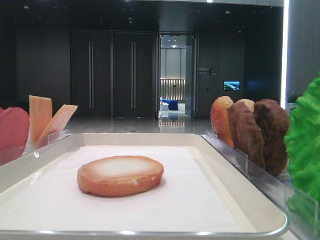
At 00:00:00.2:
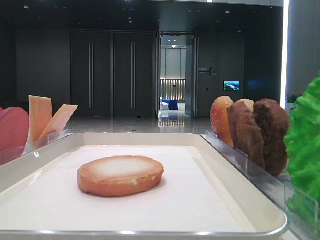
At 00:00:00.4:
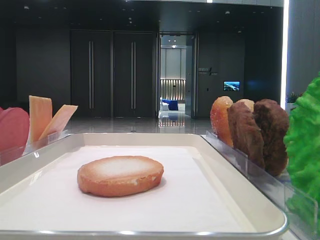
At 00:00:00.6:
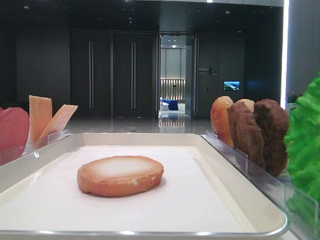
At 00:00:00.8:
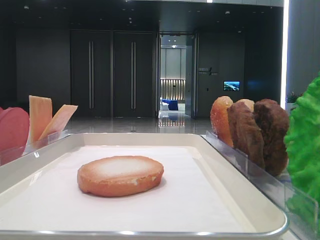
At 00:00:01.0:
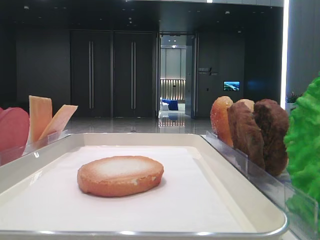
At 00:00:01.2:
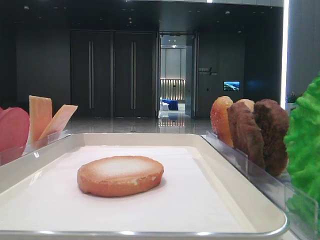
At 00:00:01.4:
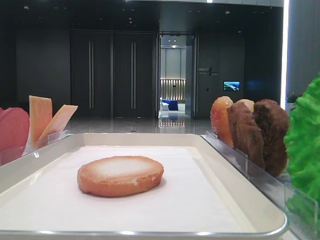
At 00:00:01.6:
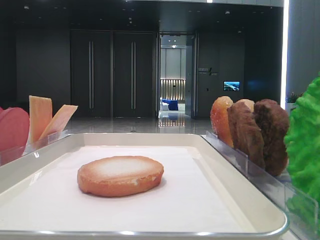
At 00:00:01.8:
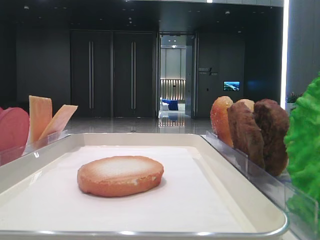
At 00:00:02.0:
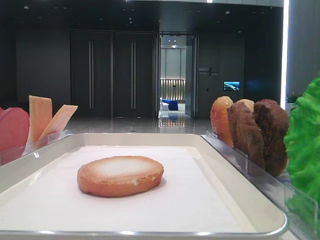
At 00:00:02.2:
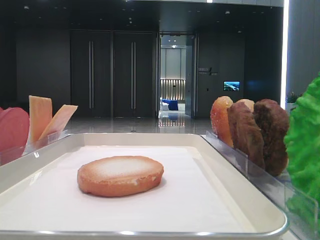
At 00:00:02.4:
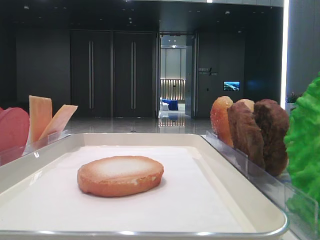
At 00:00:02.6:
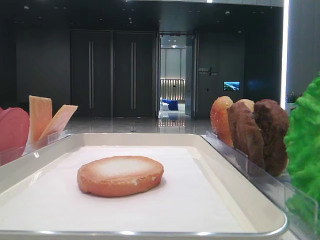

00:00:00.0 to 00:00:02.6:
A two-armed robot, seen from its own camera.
00:00:01.2 to 00:00:02.6: Neither gripper changes place.

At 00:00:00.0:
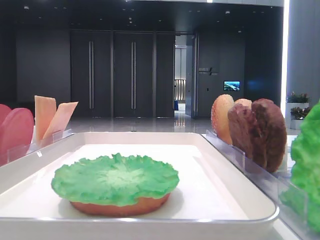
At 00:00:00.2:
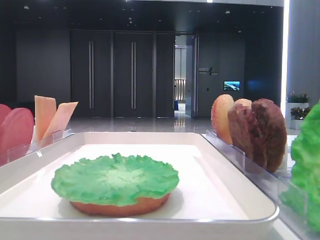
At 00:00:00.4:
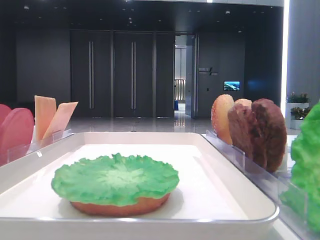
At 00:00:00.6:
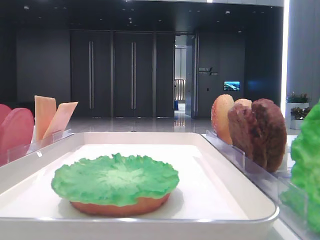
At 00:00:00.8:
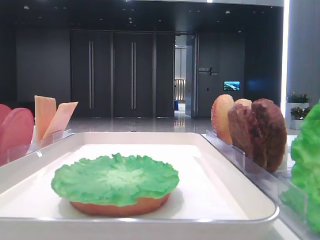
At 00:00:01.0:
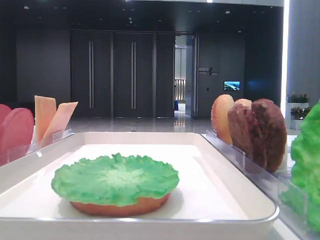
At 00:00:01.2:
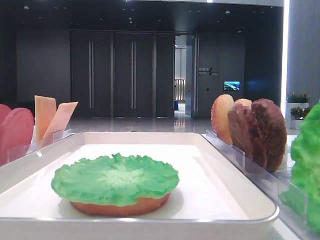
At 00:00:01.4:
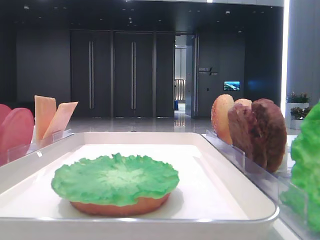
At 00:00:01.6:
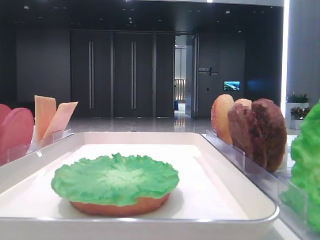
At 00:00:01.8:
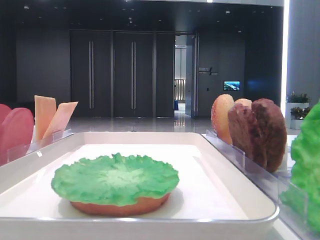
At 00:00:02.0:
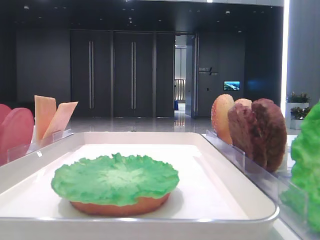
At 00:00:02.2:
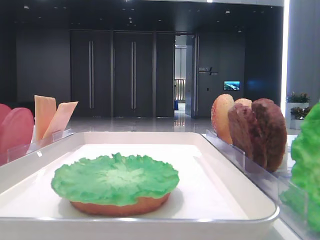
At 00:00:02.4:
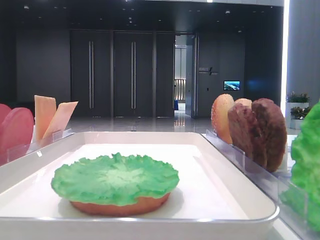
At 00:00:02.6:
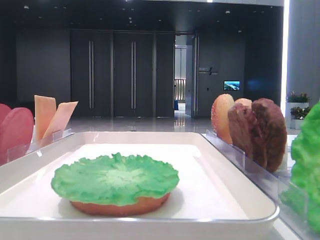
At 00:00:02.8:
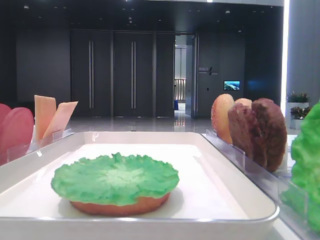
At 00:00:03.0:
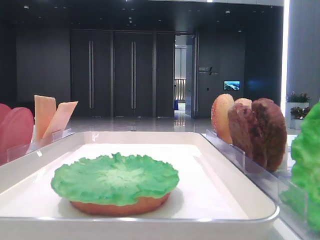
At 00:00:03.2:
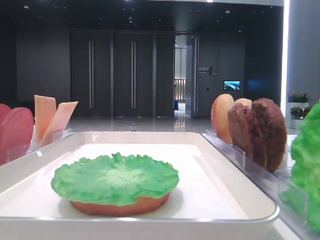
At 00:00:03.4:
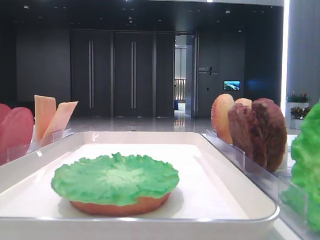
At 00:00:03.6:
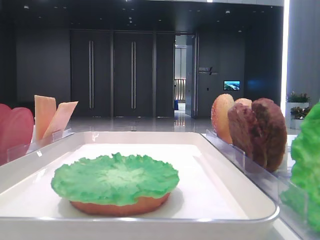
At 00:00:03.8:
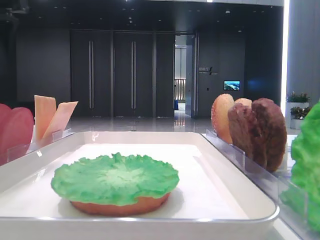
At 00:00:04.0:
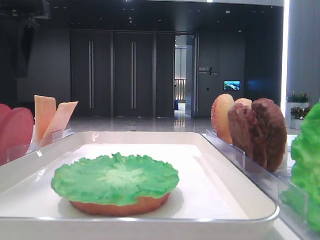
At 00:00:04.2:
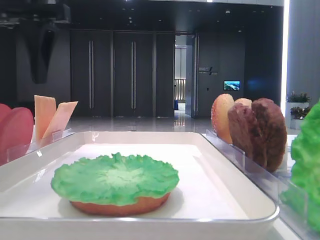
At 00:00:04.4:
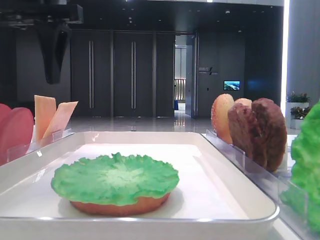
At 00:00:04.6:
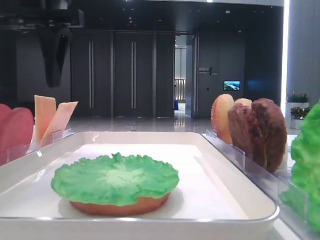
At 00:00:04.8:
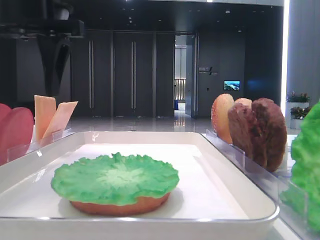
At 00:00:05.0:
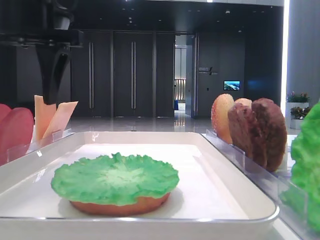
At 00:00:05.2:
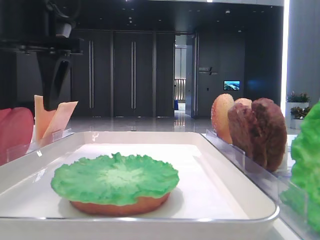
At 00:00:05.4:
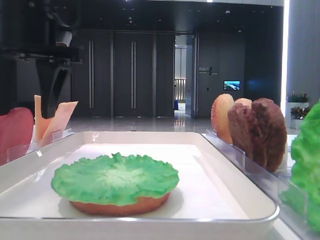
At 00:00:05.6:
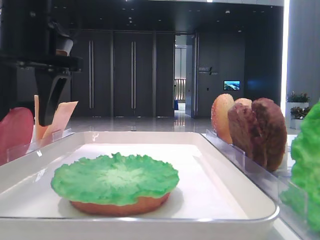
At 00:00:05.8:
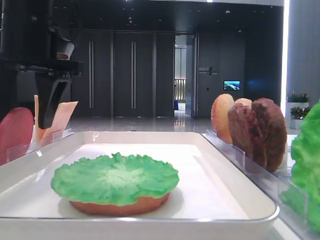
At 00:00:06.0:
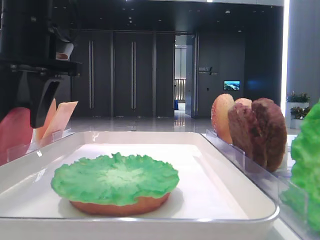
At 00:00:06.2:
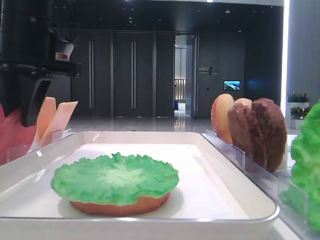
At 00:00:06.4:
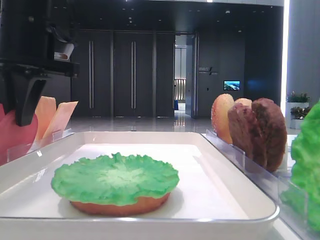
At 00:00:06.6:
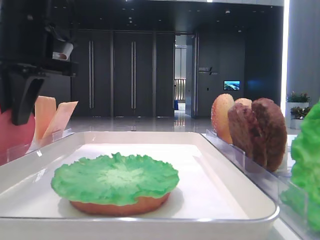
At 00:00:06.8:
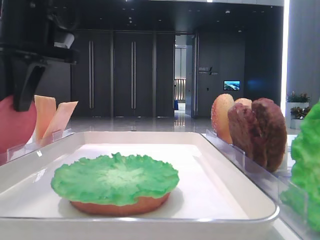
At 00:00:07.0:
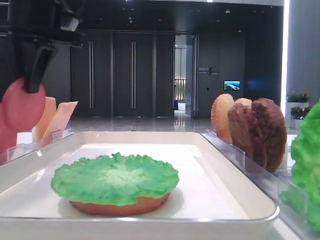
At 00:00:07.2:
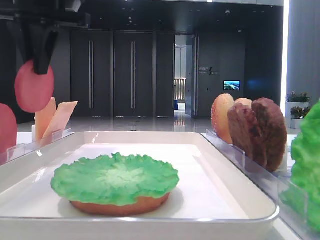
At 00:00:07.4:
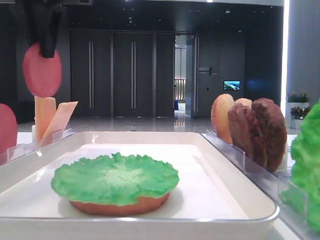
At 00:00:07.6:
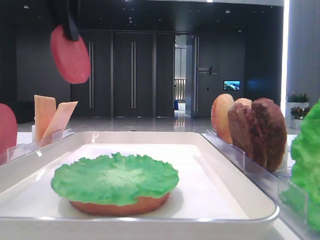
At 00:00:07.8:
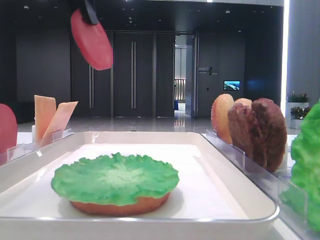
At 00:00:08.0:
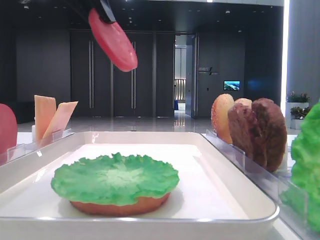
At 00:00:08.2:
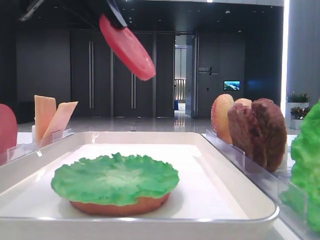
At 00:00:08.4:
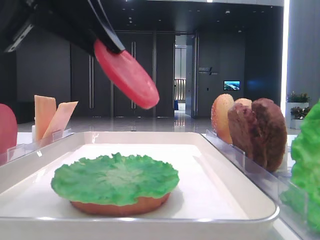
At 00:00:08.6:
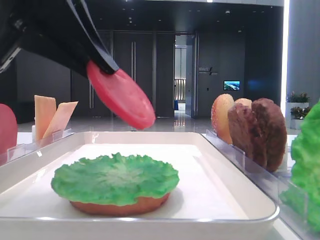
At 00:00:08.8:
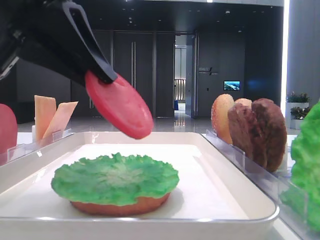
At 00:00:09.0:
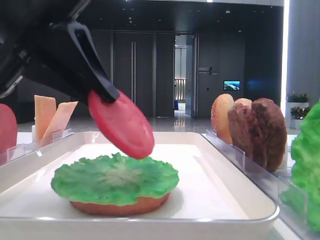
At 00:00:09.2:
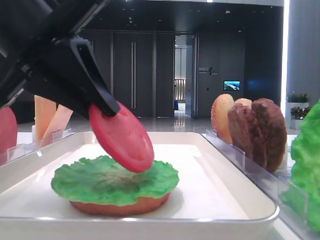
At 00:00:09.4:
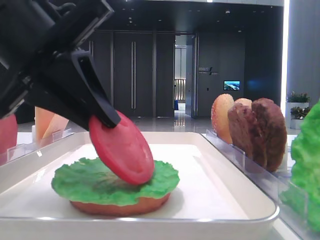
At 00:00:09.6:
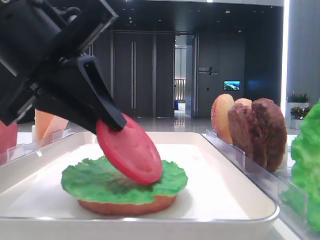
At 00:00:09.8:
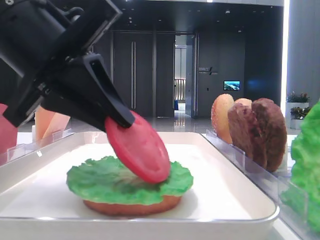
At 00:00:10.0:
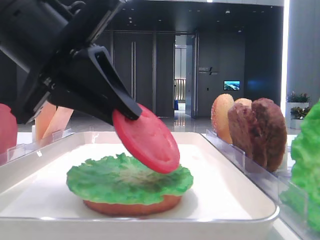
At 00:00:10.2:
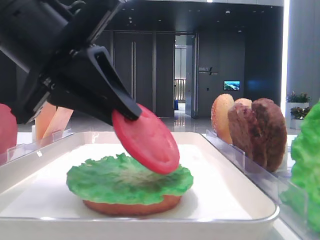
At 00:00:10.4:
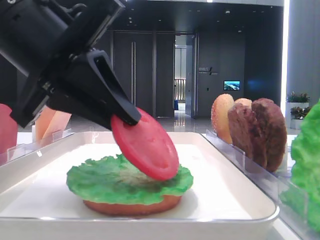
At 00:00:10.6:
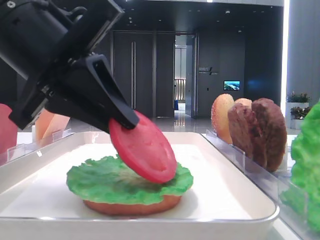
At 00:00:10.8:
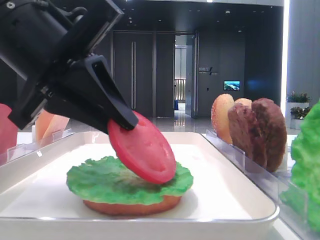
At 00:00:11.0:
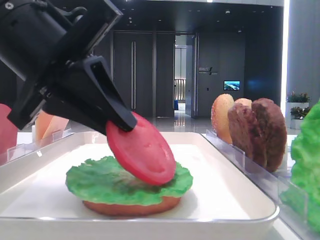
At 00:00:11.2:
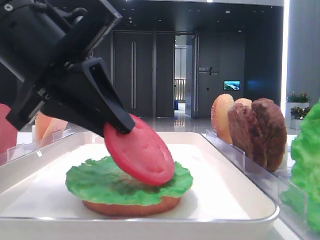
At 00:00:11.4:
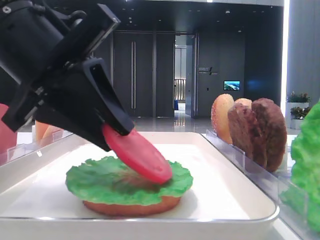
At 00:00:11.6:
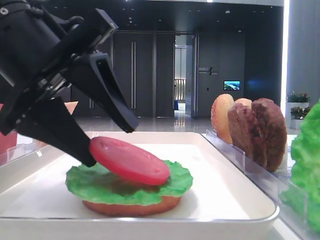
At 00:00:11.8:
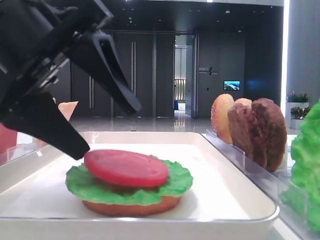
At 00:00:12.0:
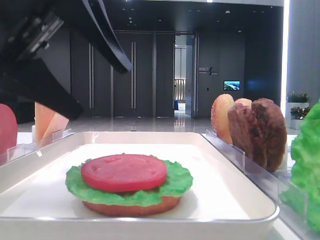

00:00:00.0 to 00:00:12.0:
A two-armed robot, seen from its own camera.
Step, 00:00:00.0 to 00:00:06.4: Pick up the tomato slice with the left hand.
Step, 00:00:06.6 to 00:00:11.6: Place the tomato slice on the lettuce leaf with the left hand.
00:00:03.0 to 00:00:04.4: The left gripper shifts approximately 15 cm to the right.
00:00:04.4 to 00:00:06.0: The left gripper is displaced downward by approximately 5 cm.
00:00:06.0 to 00:00:07.6: The left gripper shifts roughly 10 cm upward, and closes up.
00:00:07.6 to 00:00:09.0: The left gripper goes some 15 cm downward and backward.
00:00:09.0 to 00:00:10.4: The grippers move only a little.
00:00:10.4 to 00:00:12.0: The left gripper opens its fingers.

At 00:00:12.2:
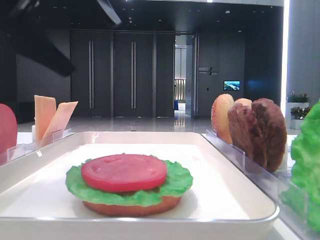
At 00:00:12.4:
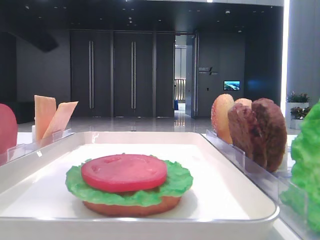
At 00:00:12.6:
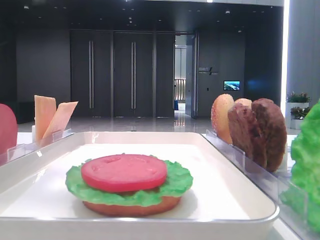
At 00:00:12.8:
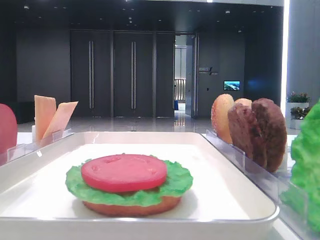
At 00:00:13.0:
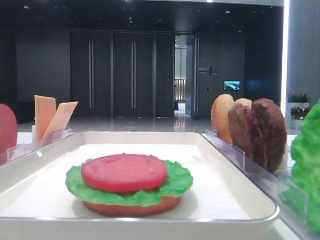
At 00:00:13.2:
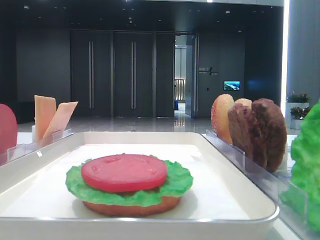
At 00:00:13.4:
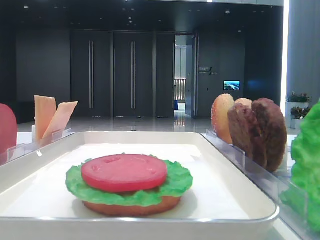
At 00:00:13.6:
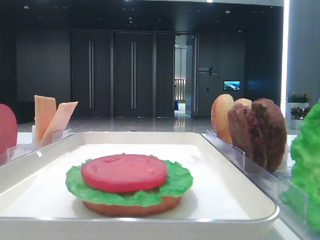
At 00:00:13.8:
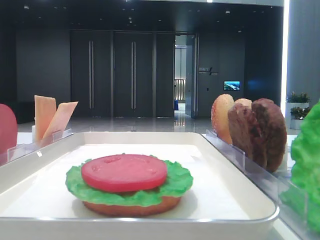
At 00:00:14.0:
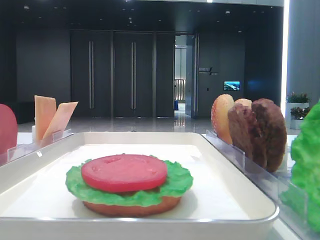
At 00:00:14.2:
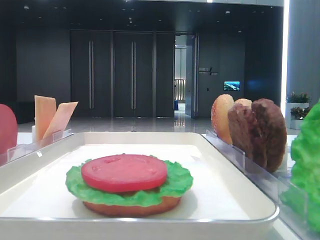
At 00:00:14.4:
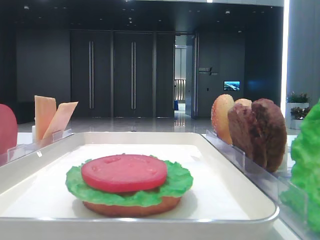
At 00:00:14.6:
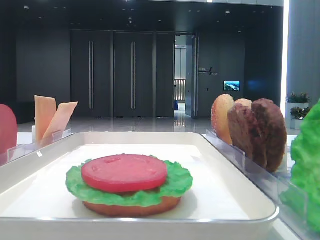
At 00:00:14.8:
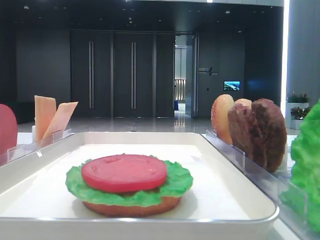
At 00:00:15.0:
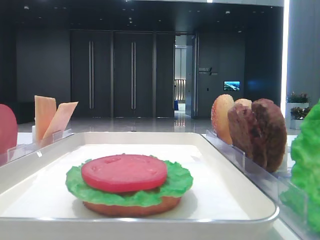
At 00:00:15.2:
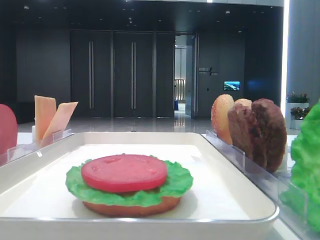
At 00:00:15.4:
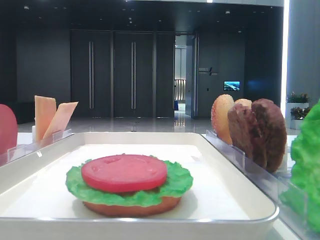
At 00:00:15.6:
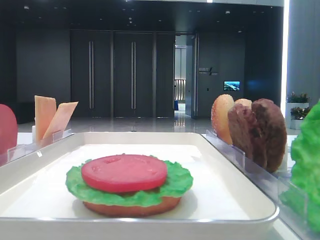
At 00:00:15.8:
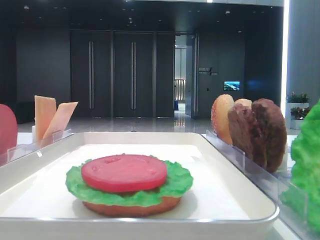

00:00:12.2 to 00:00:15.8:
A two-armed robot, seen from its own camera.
00:00:12.2 to 00:00:14.0: The left gripper goes some 20 cm to the left and backward.
